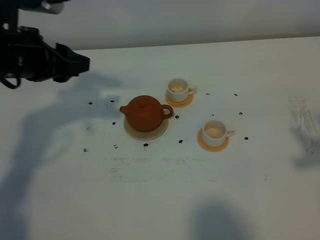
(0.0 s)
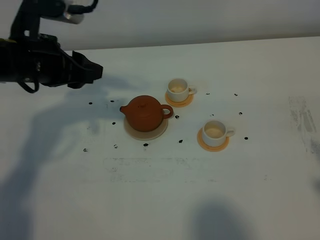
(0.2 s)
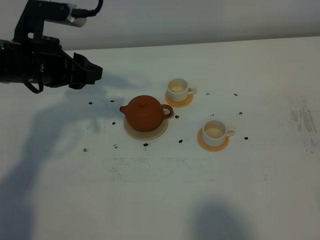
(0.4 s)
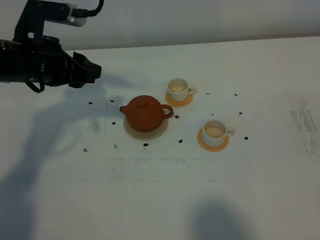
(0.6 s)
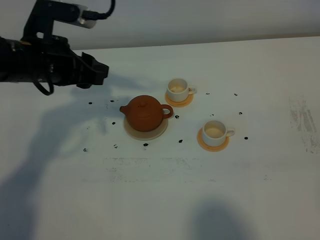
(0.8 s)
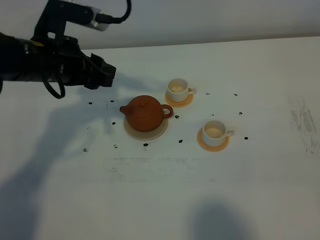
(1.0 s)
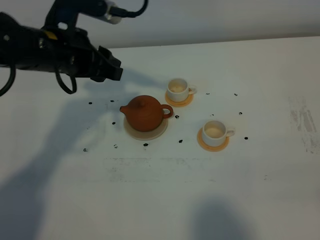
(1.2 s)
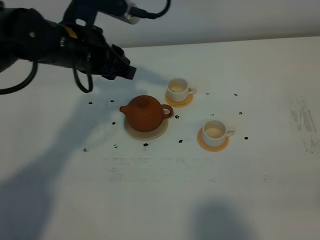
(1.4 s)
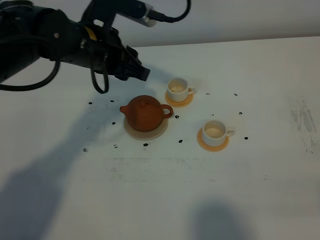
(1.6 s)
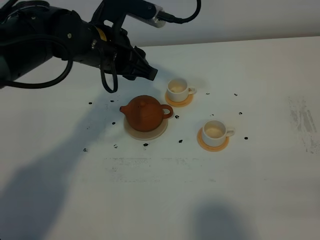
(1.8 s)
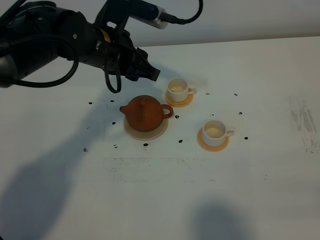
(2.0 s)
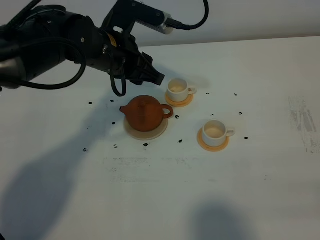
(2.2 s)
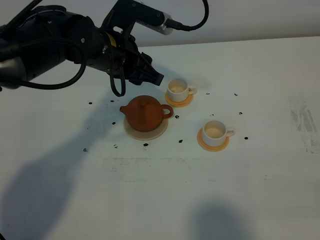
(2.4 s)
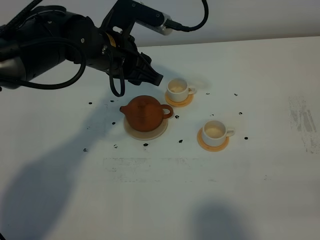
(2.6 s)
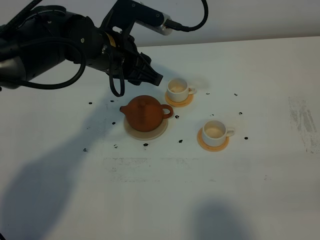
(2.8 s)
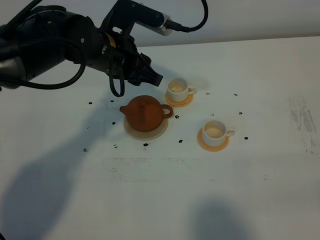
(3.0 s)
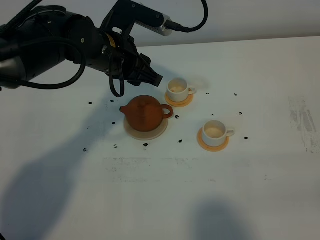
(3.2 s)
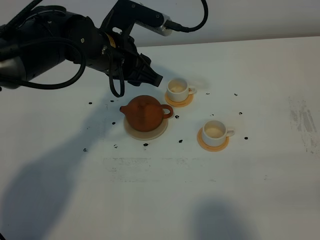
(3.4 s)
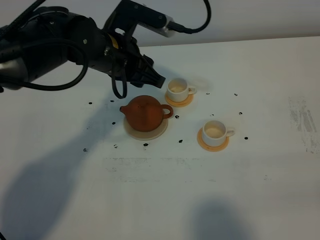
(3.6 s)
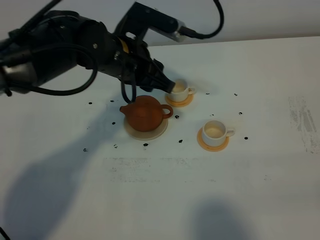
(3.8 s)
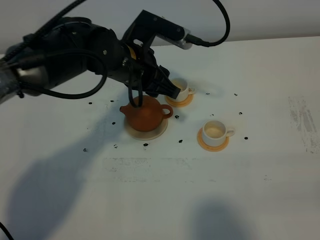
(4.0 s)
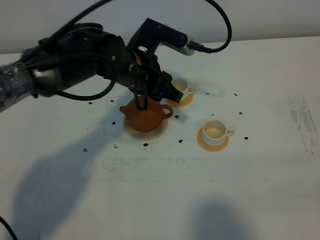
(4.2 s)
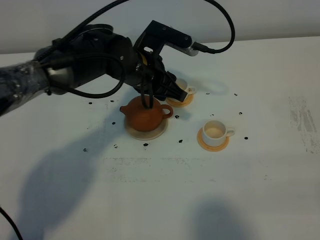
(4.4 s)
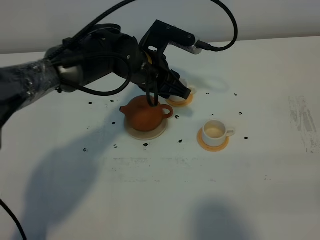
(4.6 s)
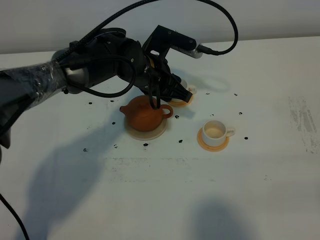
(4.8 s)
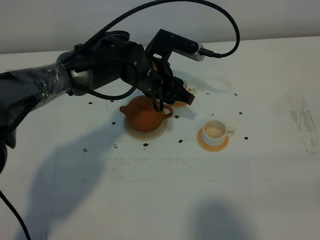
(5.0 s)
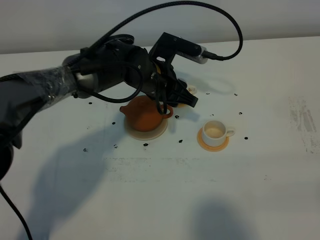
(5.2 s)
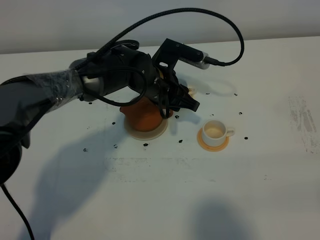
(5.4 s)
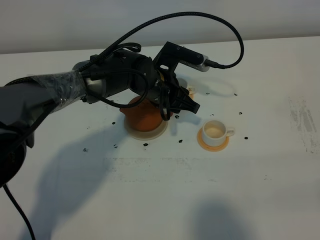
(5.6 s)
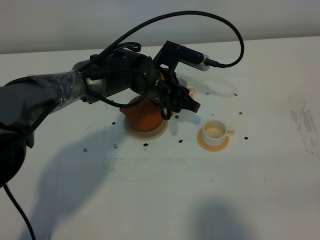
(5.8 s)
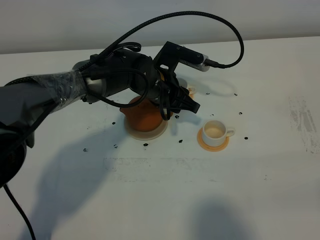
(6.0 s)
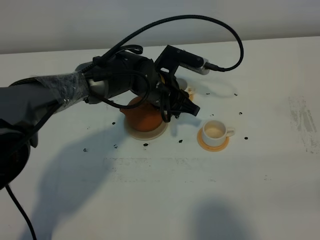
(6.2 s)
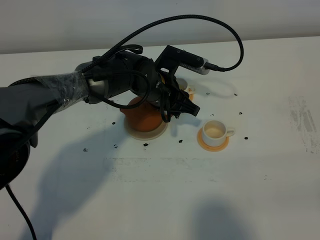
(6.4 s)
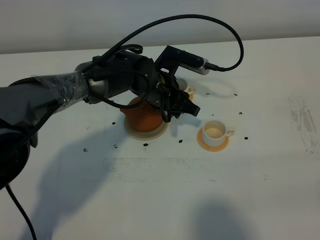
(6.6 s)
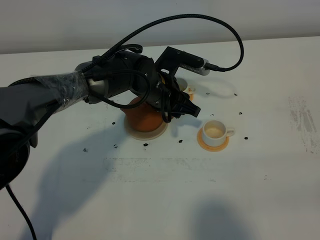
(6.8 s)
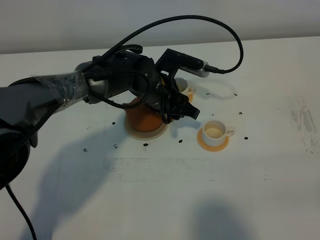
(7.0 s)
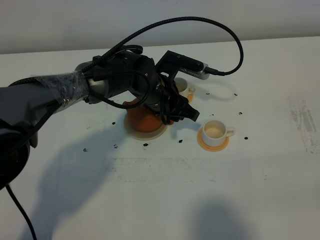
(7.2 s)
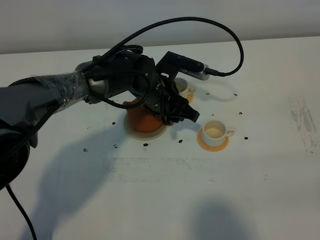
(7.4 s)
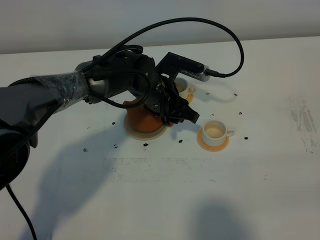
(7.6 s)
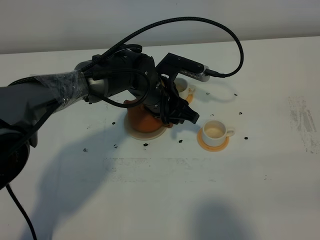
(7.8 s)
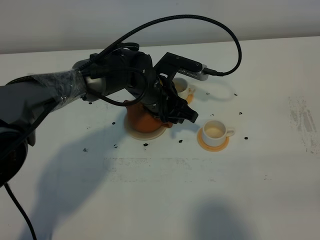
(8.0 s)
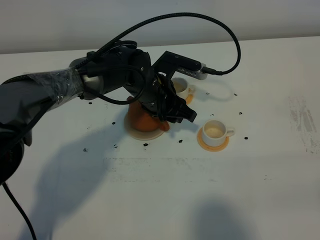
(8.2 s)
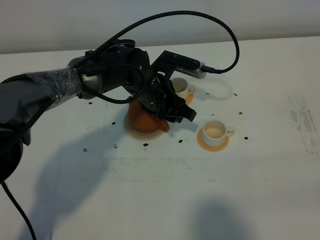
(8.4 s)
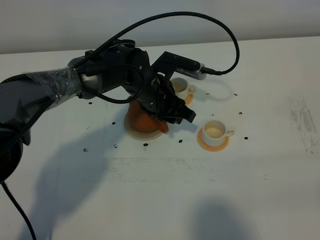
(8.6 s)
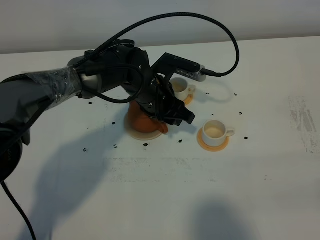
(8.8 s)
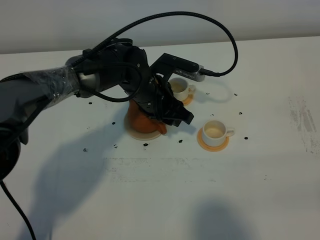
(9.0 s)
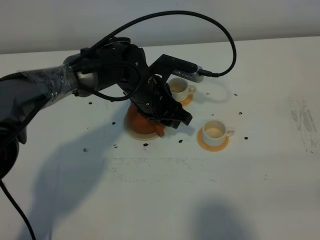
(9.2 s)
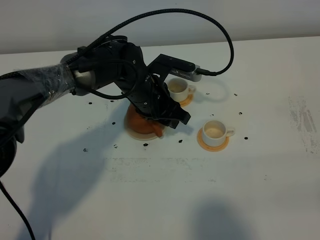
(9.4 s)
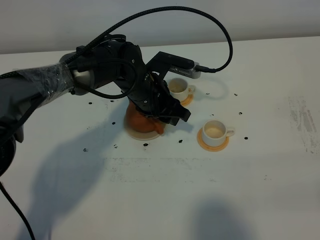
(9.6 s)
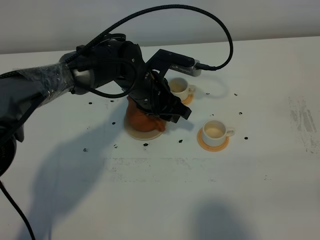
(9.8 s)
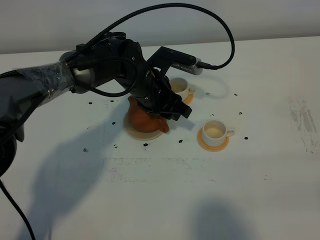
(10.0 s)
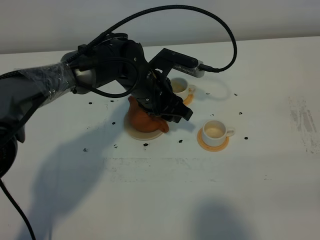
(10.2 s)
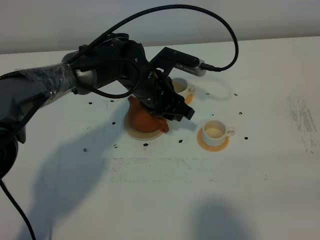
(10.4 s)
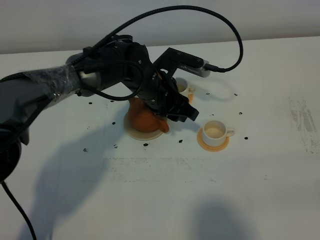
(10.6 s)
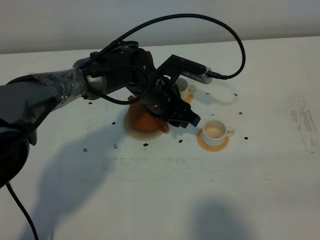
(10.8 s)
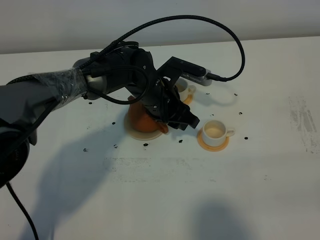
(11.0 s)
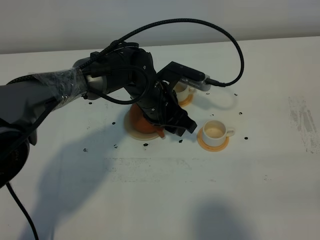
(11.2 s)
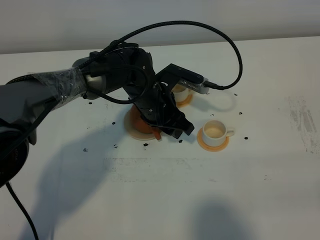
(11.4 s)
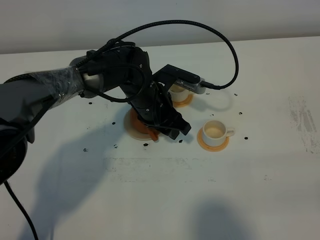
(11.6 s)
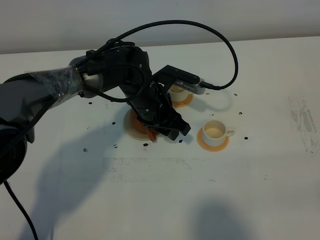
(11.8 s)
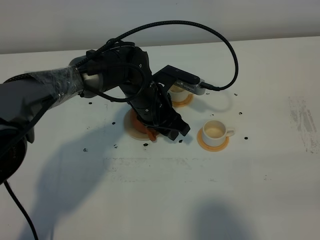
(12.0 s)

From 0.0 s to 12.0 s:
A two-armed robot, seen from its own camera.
Task of the whole recording: grasp the brown teapot and pour the tea into the two white teacups one by one, put the brown teapot back in its original place.
From 0.0 s to 1.6 s: The left gripper heads to the right, covering some 10 cm. Meanwhile the right gripper moves backward and downward, approximately 20 cm.
From 1.6 s to 3.0 s: The right gripper closes its fingers.
From 3.0 s to 4.4 s: The left gripper is displaced downward by roughly 5 cm.
From 4.4 s to 6.0 s: The left gripper goes roughly 5 cm downward.
From 6.0 s to 9.0 s: The grippers make only small movements.
From 9.0 s to 10.4 s: Both grippers stay about where they are.
From 10.4 s to 12.0 s: The grippers make only small movements.

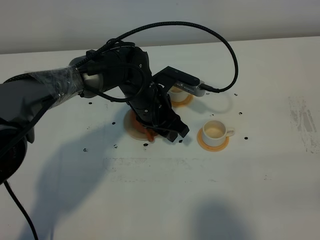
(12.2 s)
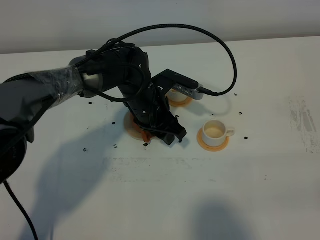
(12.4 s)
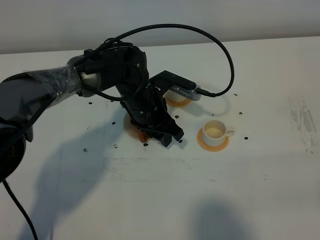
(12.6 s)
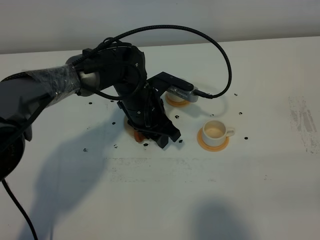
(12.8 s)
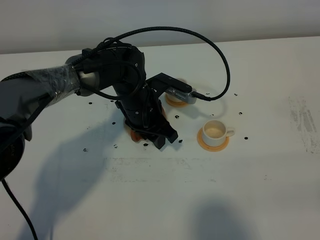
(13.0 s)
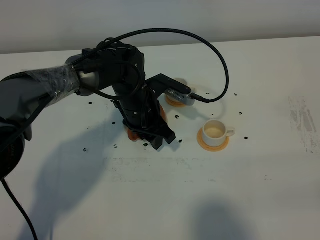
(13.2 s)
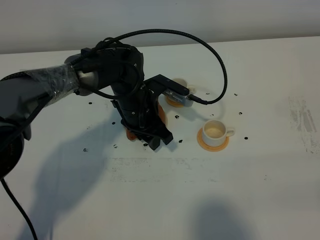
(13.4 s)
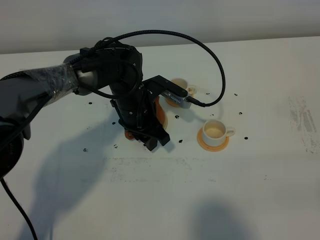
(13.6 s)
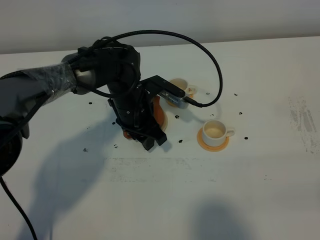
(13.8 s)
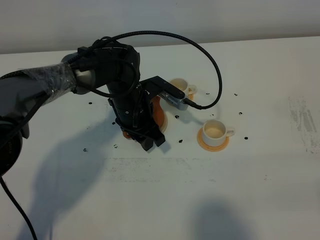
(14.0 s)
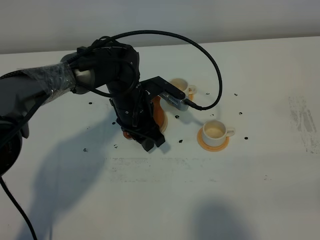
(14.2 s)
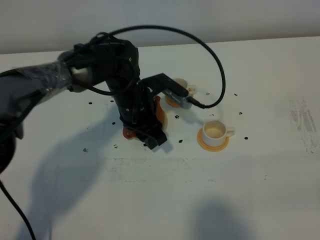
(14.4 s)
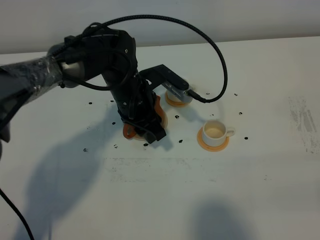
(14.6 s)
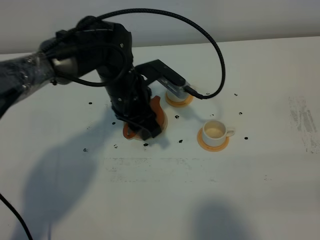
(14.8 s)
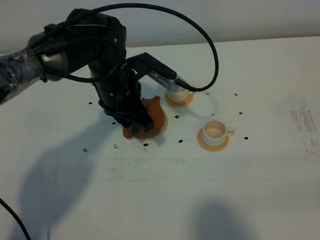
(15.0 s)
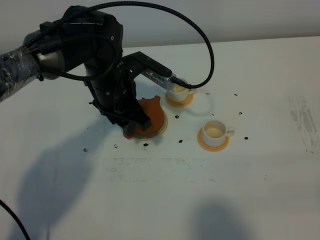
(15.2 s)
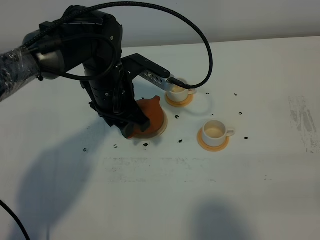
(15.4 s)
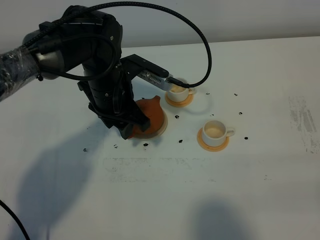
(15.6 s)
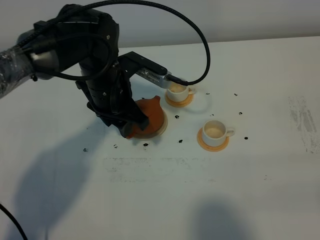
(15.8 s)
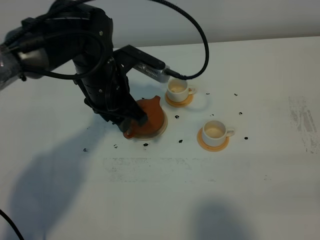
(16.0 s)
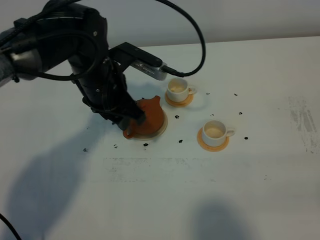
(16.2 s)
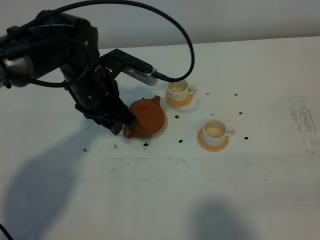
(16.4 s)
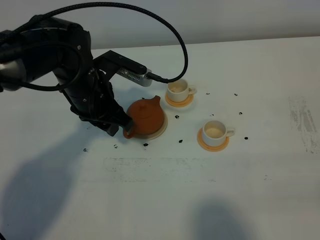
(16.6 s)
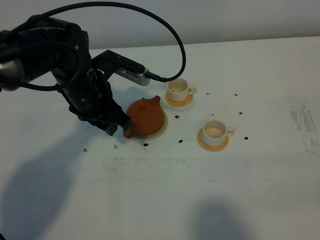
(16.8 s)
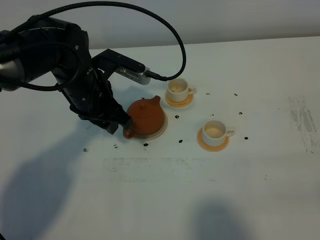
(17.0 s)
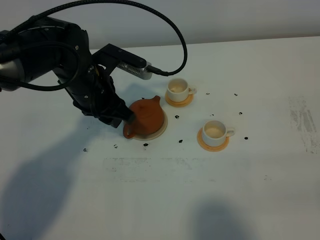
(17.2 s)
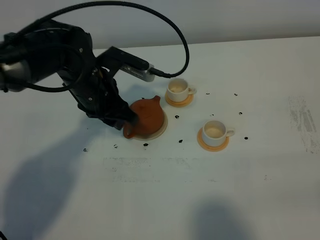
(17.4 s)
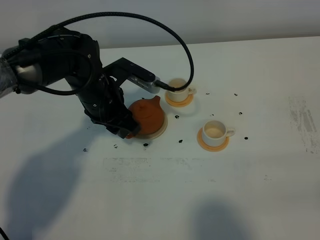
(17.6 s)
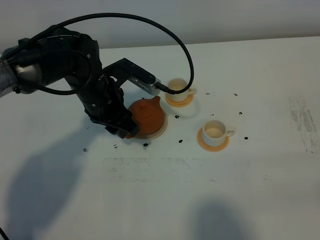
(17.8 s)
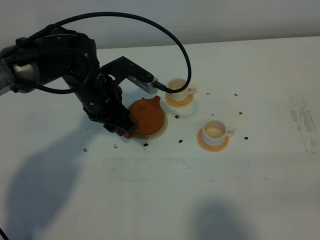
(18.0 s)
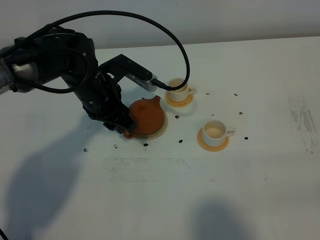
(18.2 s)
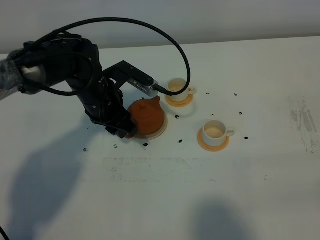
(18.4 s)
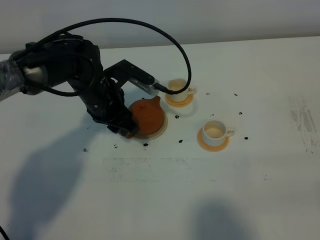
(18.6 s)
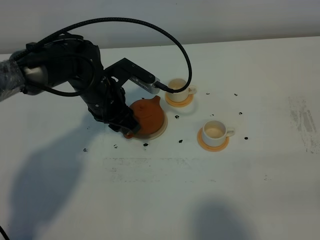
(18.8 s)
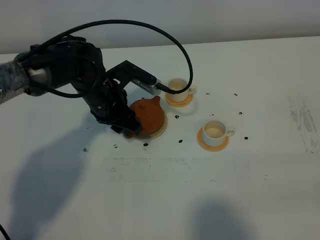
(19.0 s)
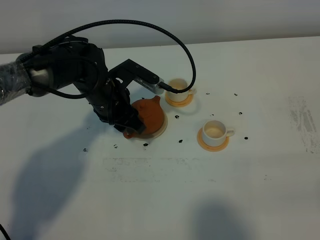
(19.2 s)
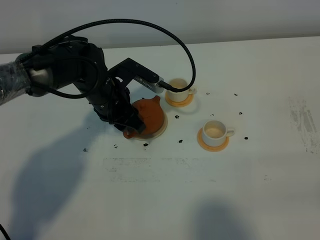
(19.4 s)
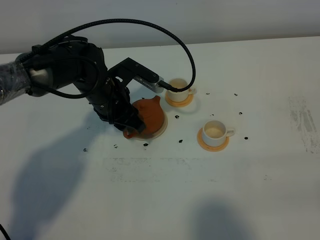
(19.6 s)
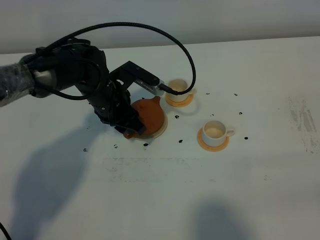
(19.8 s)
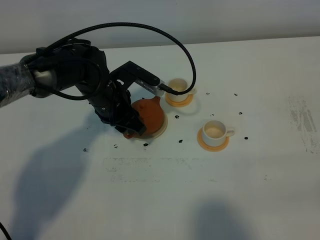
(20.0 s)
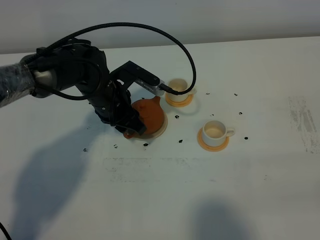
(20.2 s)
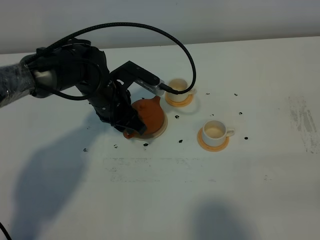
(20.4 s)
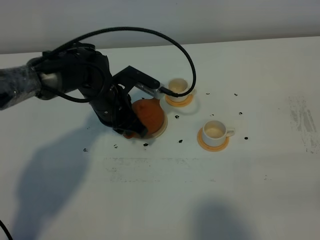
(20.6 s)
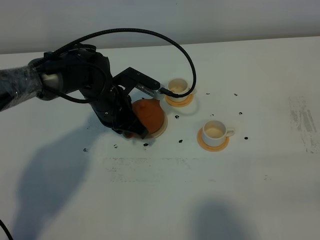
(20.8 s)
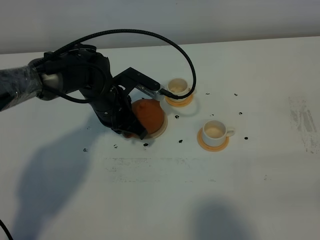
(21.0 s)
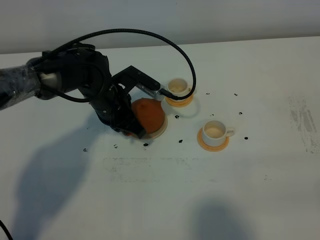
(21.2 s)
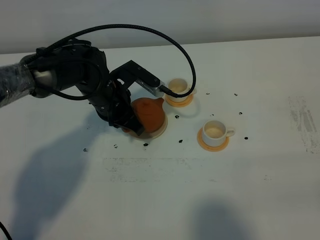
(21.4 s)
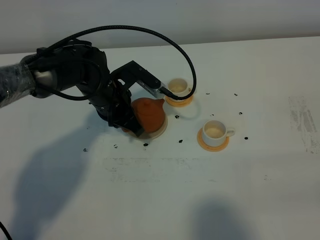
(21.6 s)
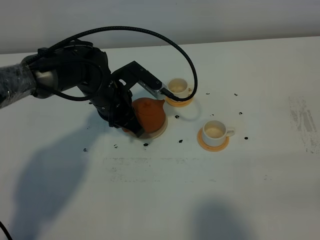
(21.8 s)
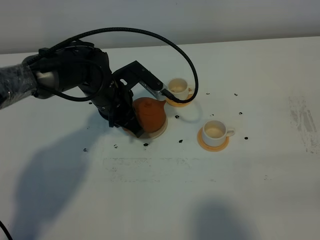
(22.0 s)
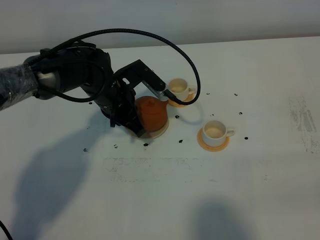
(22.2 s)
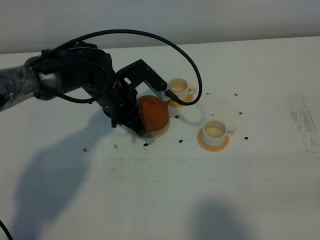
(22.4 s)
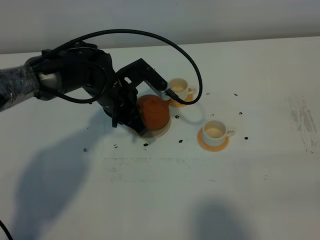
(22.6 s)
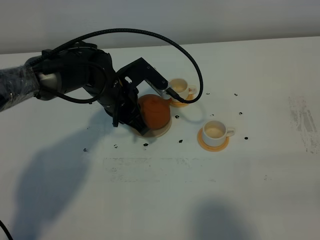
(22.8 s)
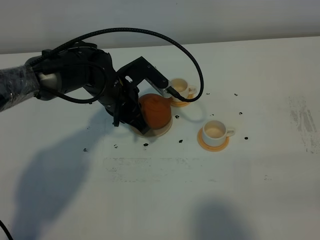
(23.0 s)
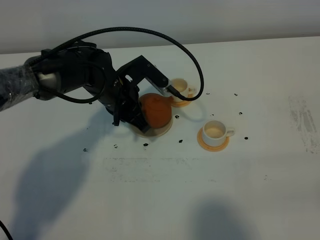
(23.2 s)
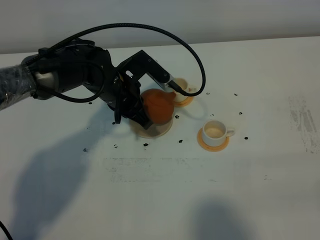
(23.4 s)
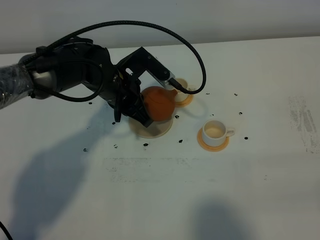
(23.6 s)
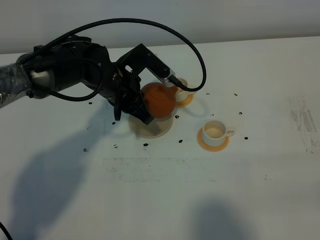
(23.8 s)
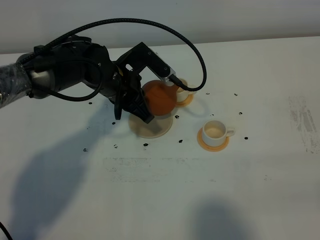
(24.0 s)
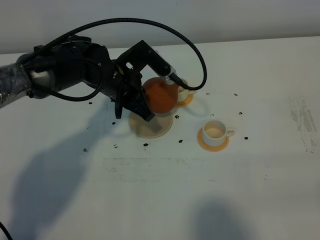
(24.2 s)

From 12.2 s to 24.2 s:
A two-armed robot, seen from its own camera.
Task of the whole recording: grasp the brown teapot and pour the tea into the two white teacups one by one, put the brown teapot back in its original place.
Step, from 12.2 s to 23.6 s: Pick up the teapot with the left gripper.
From 12.2 s to 13.8 s: The grippers move only a little.
From 13.8 s to 15.2 s: The left gripper goes about 5 cm upward.
From 15.2 s to 18.2 s: The grippers make only small movements.
From 18.2 s to 19.8 s: The grippers stay close to where they were, moving slightly.
From 19.8 s to 21.2 s: The left gripper closes.
From 21.2 s to 24.2 s: There are only small adjustments of the grippers.
